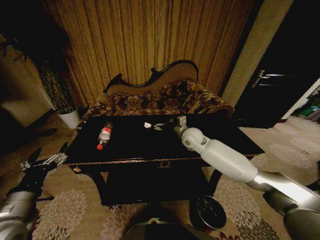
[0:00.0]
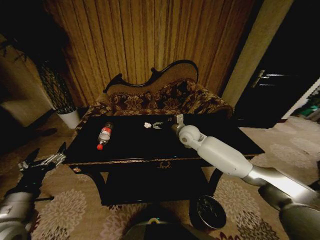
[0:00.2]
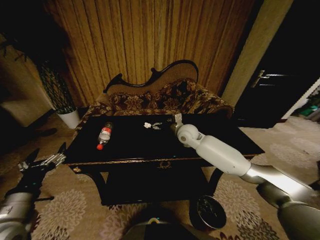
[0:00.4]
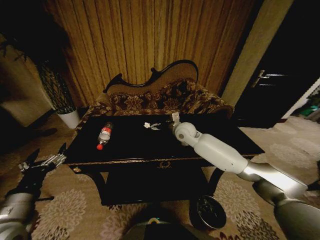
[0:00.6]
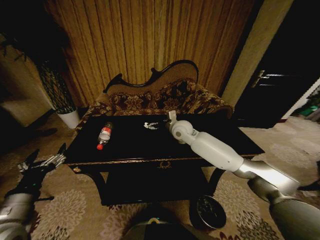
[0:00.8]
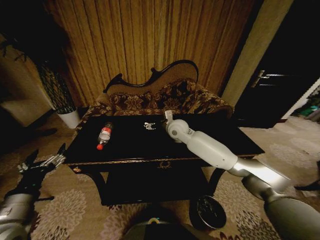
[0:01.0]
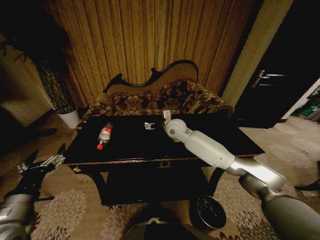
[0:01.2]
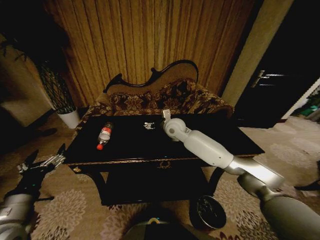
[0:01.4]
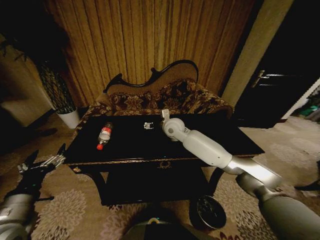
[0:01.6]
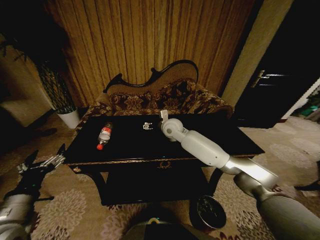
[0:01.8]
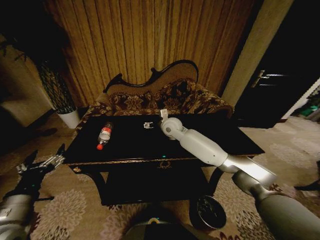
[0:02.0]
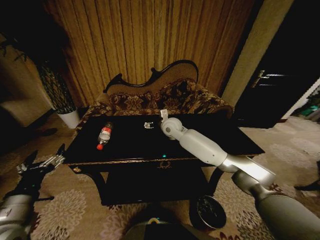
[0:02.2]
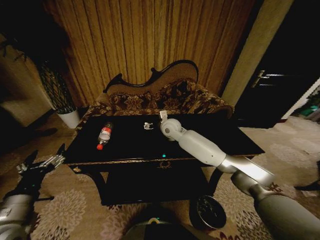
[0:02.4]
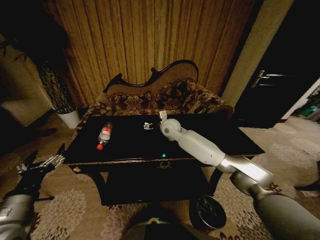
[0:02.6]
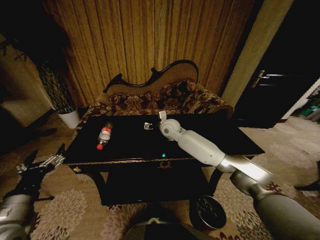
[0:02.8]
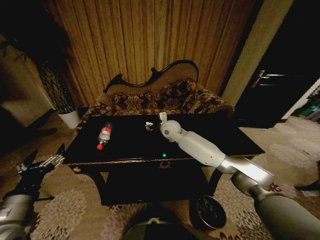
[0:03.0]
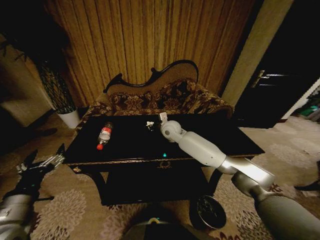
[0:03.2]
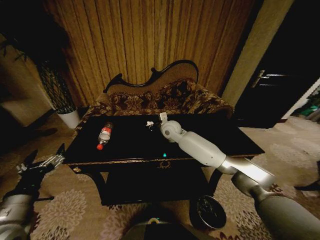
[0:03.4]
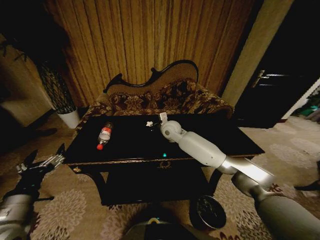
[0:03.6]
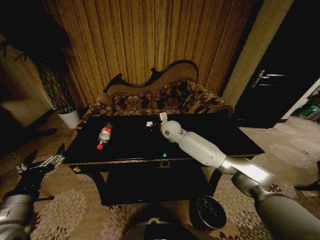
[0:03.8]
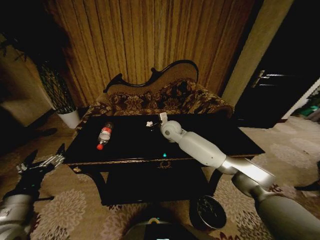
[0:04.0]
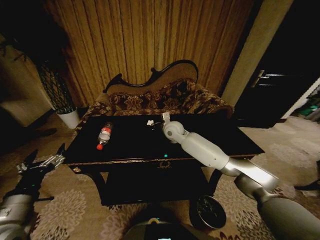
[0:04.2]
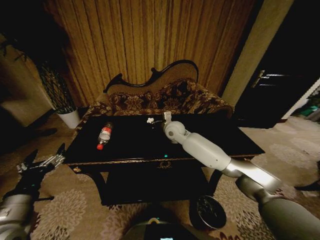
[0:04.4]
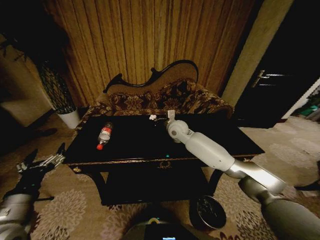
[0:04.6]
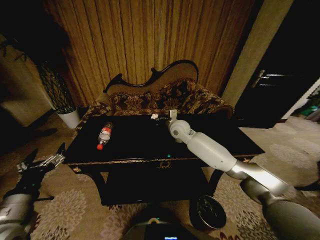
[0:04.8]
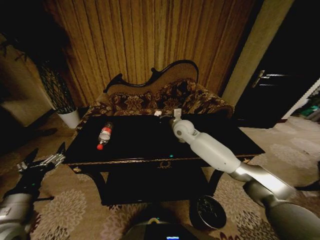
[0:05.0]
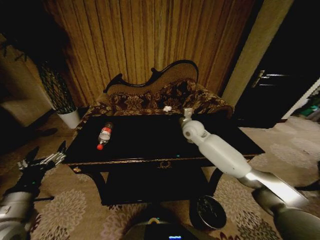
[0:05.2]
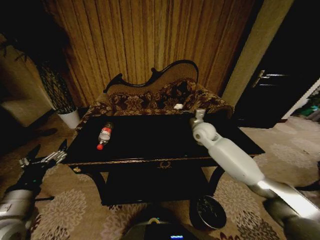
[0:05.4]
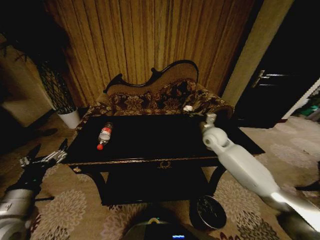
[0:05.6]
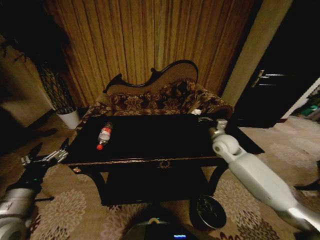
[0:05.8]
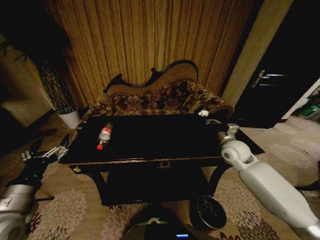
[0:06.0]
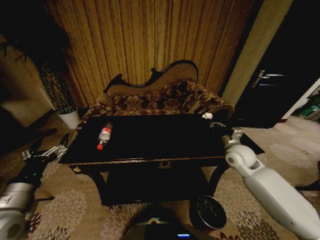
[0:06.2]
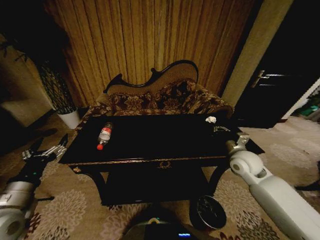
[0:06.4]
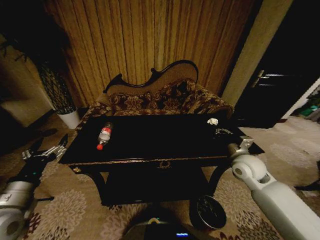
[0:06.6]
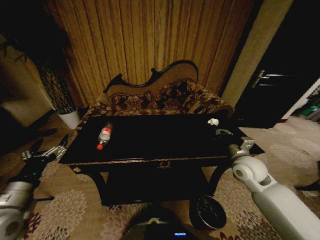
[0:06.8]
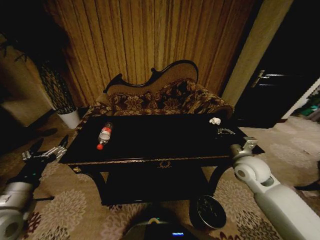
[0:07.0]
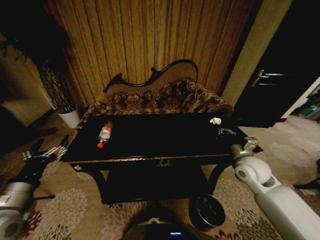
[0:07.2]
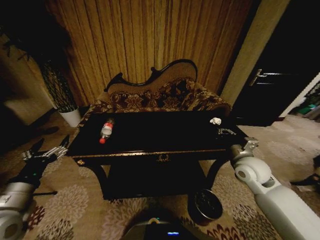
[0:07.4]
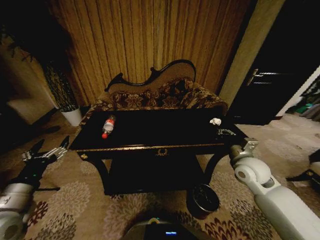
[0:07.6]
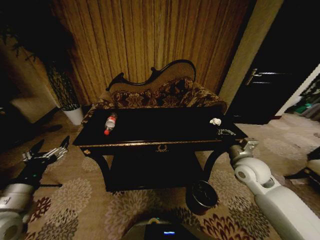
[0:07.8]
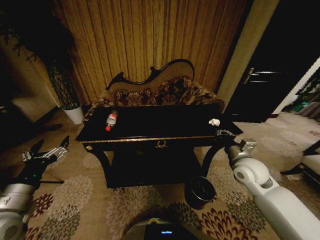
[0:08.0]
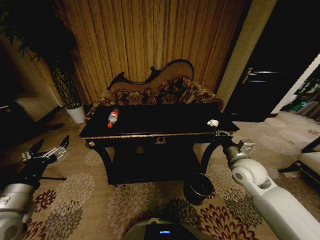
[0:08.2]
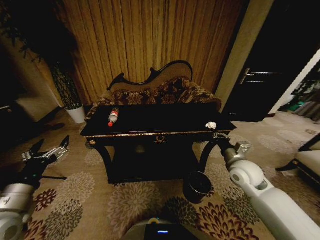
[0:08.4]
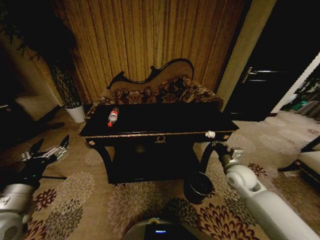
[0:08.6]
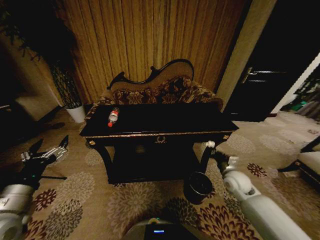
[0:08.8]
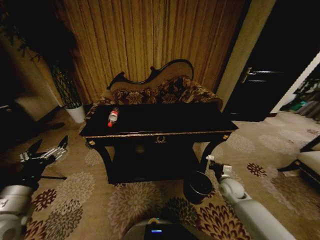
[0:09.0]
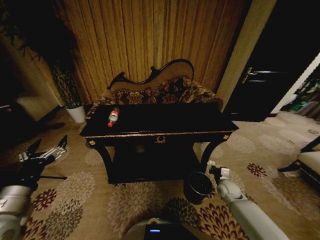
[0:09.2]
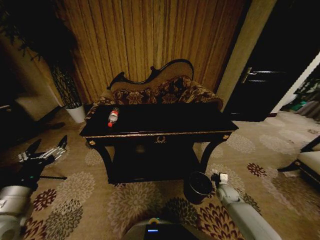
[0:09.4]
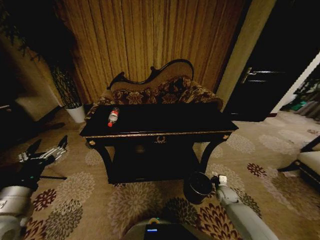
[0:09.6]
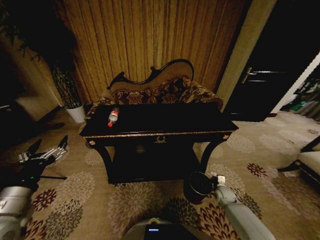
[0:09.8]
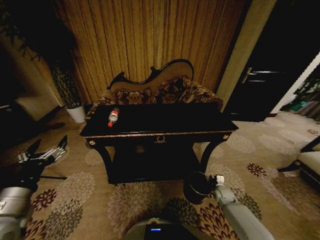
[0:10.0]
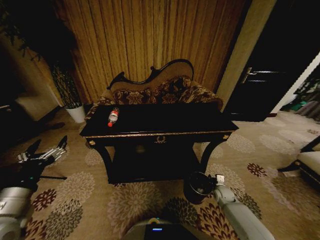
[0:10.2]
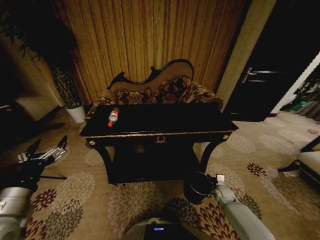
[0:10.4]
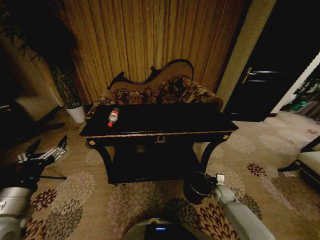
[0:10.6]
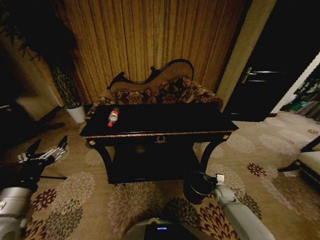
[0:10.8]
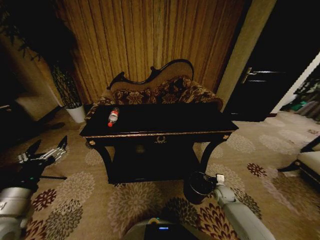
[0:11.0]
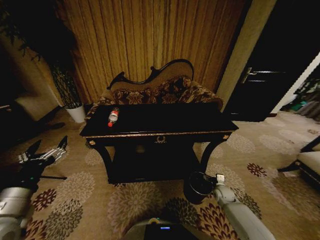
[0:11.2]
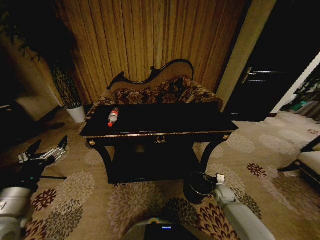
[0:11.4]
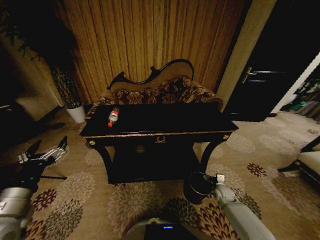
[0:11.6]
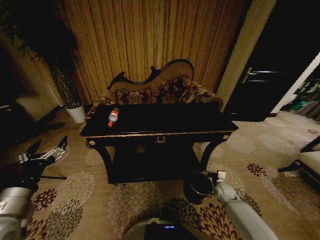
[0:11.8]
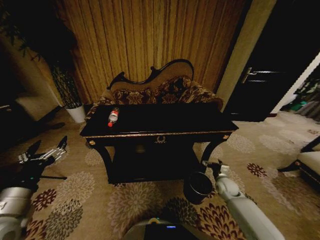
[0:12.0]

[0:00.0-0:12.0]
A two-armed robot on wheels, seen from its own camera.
Task of the whole recording: Move to the front of the table and place the trash on the table into the trash bin.
0:00.0 to 0:01.6: The right gripper goes some 10 cm to the left.
0:01.6 to 0:03.0: The grippers move only a little.
0:03.0 to 0:04.4: The right gripper closes.
0:04.4 to 0:06.0: The right gripper shifts about 25 cm to the right and backward.
0:06.0 to 0:07.6: The right gripper moves backward, roughly 10 cm.
0:07.6 to 0:09.0: The right gripper moves downward, about 20 cm.
0:09.0 to 0:10.4: The right gripper moves downward, about 10 cm, and opens up.
0:10.4 to 0:12.0: The right gripper moves upward, some 10 cm, and opens.

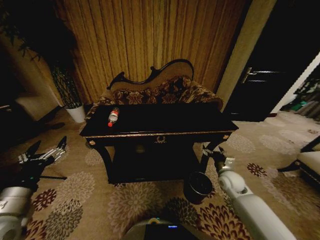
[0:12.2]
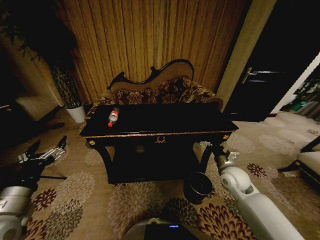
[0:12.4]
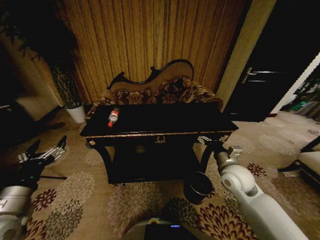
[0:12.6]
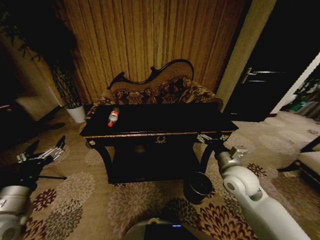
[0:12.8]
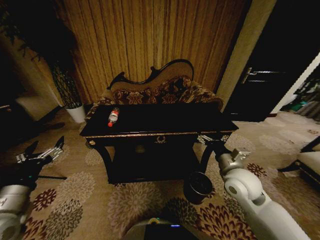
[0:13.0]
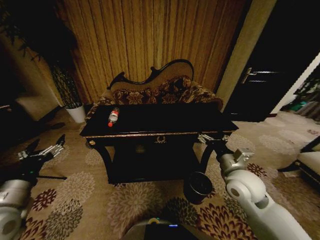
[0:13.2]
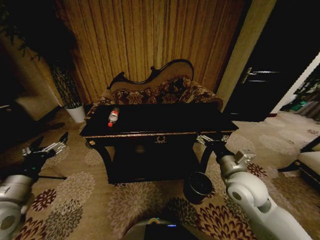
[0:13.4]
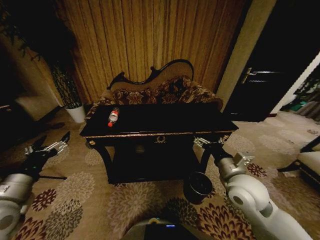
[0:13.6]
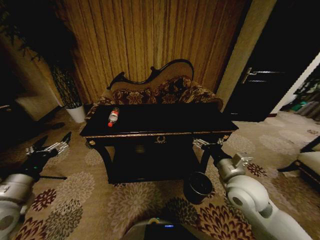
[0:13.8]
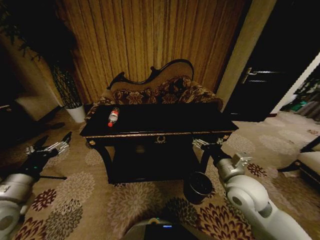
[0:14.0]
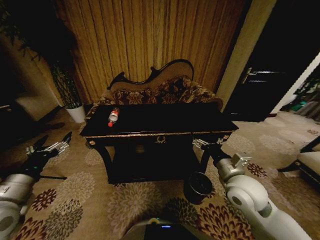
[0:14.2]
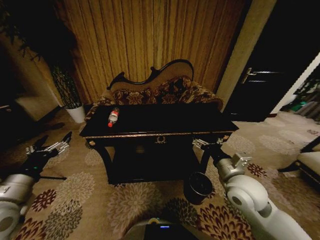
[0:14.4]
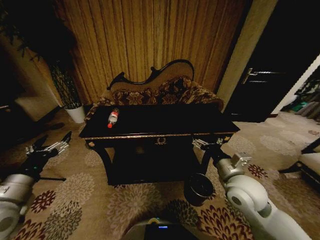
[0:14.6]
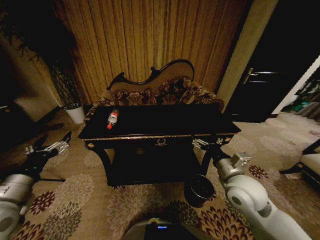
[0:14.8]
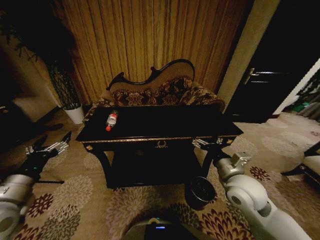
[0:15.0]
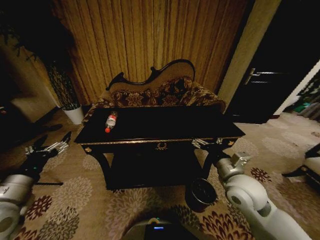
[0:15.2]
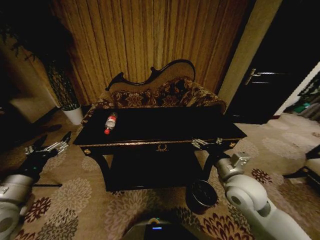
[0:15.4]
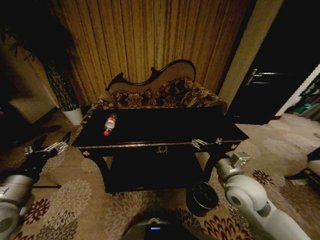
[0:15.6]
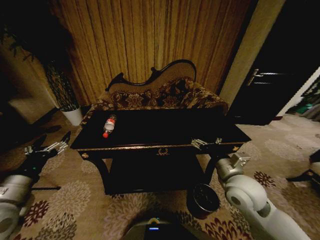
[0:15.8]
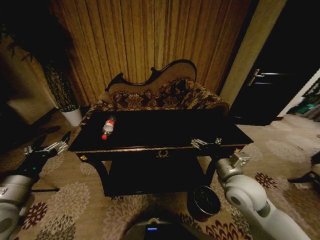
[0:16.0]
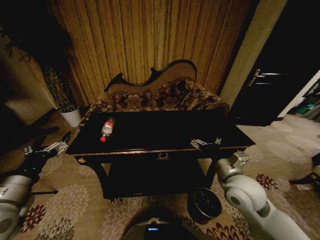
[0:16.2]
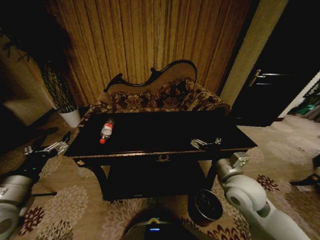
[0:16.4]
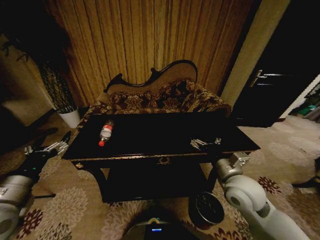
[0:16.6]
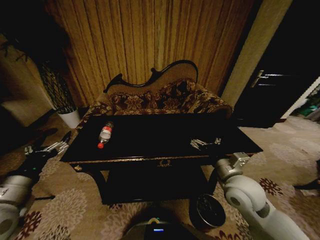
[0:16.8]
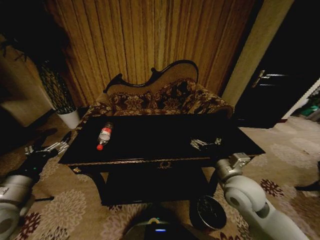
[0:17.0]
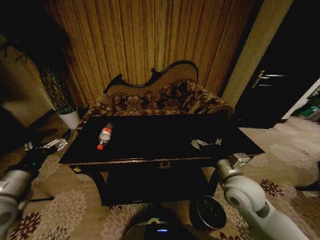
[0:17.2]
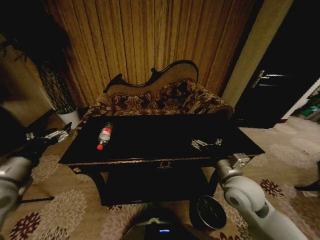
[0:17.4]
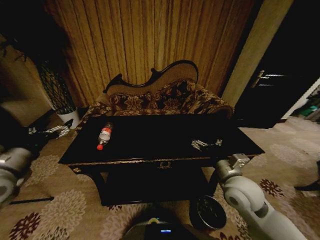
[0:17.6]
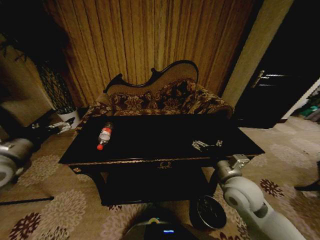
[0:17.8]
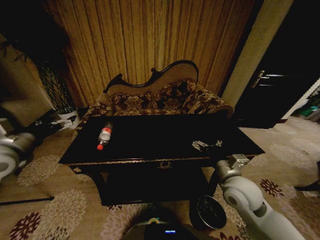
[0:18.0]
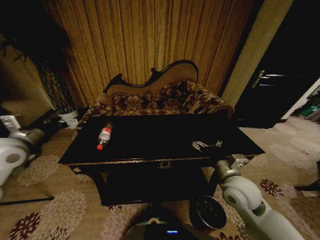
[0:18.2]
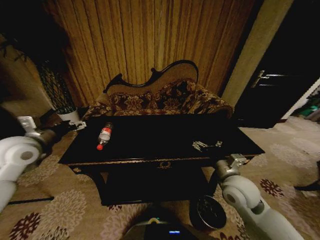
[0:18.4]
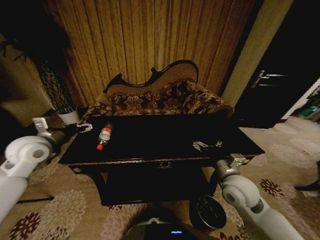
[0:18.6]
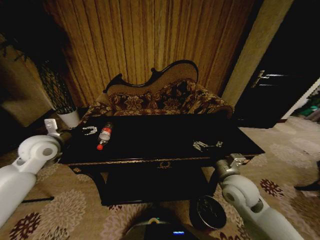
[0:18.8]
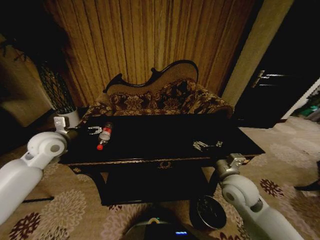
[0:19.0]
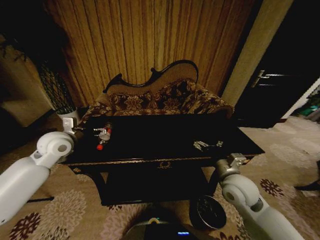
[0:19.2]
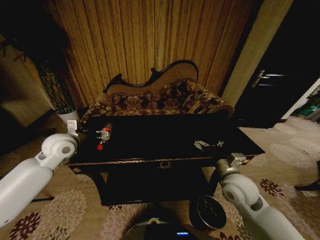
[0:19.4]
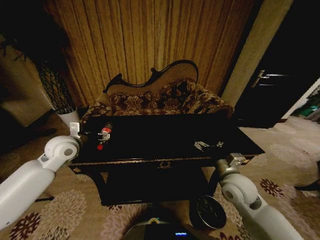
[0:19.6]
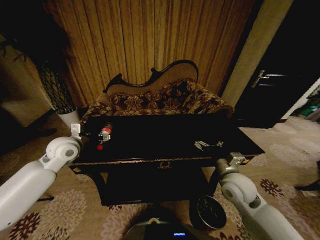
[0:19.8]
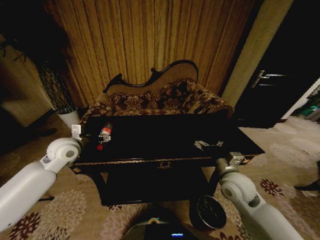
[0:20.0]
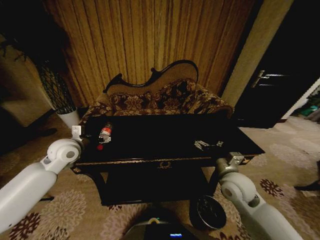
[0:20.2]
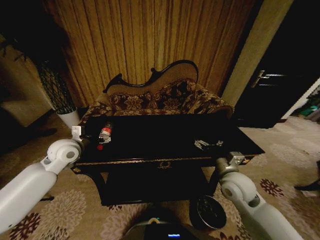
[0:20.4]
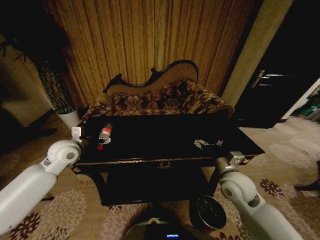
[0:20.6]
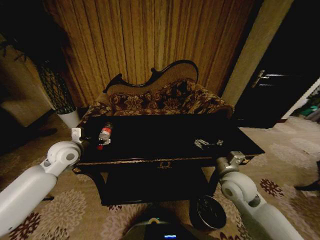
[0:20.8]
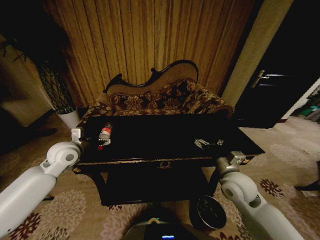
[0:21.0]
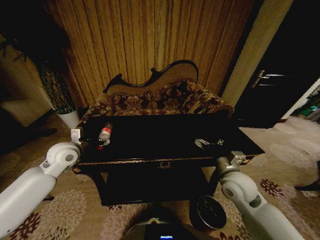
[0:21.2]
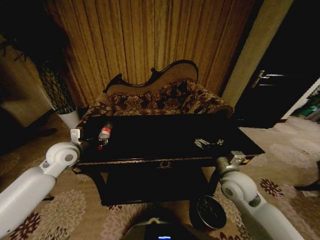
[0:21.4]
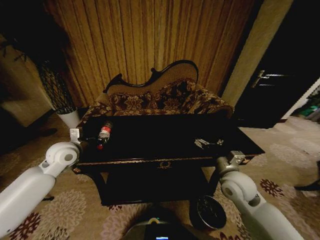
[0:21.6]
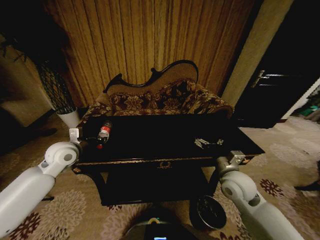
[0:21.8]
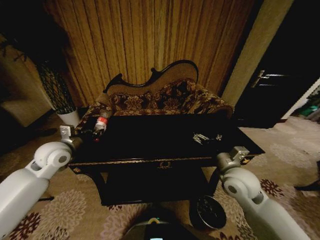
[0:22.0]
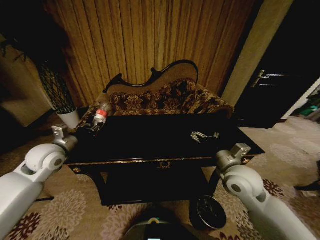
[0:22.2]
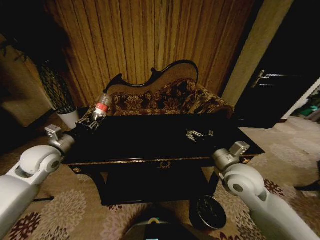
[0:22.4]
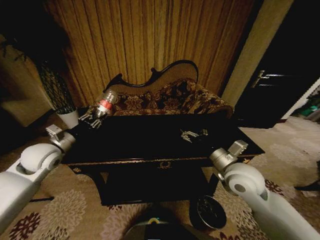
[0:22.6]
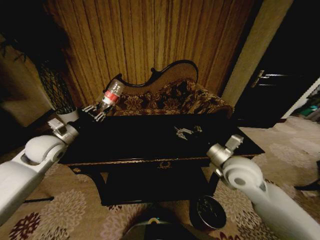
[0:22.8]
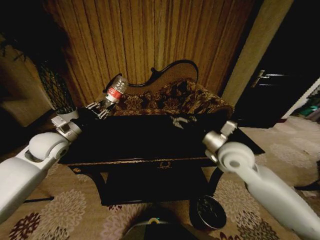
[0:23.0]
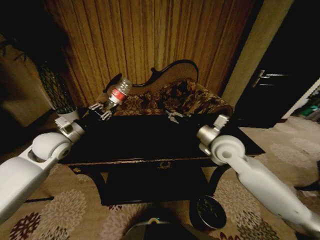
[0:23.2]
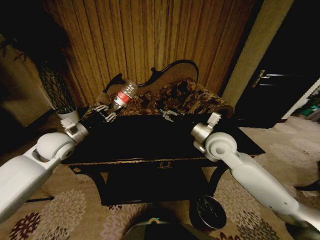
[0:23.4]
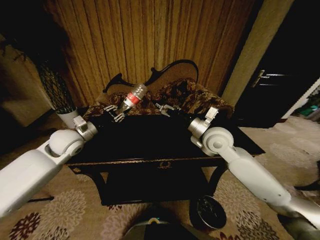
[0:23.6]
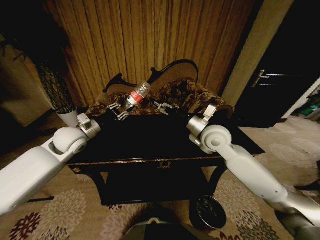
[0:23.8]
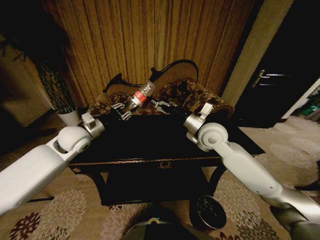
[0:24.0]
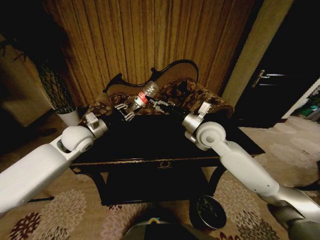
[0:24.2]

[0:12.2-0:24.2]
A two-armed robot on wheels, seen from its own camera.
Task of the whole recording: Move to the front of the table and place the trash on the table into the trash bin.
0:12.2 to 0:13.8: The right gripper goes approximately 20 cm upward, to the left and backward.
0:13.8 to 0:16.6: Neither gripper changes place.
0:16.6 to 0:18.2: The left gripper travels forward and upward by approximately 15 cm.
0:18.2 to 0:19.8: The left gripper goes roughly 15 cm to the right, downward and forward.
0:19.8 to 0:21.2: The grippers move only a little.
0:21.2 to 0:22.6: The left gripper heads to the left, covering about 5 cm, and closes up; the right gripper goes roughly 5 cm upward.
0:22.6 to 0:24.2: The right gripper shifts about 15 cm forward and to the left, while the left gripper goes roughly 10 cm to the right and forward.
